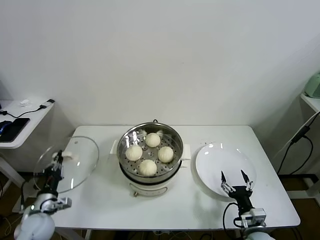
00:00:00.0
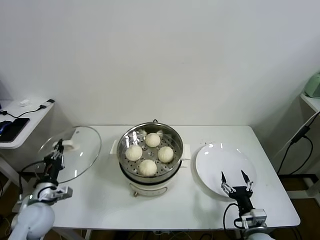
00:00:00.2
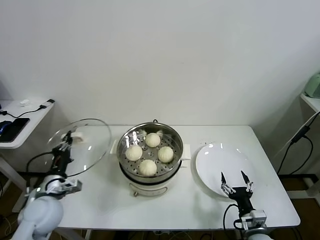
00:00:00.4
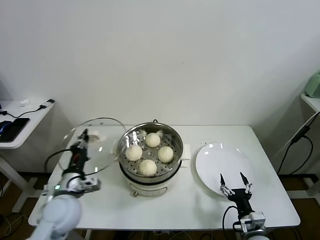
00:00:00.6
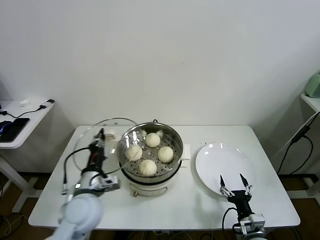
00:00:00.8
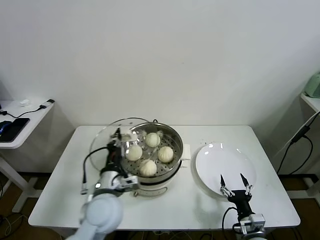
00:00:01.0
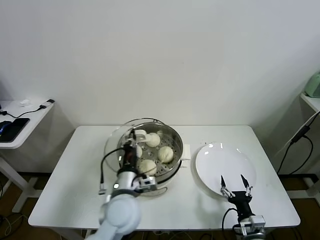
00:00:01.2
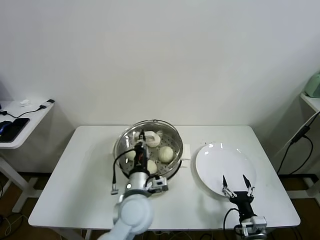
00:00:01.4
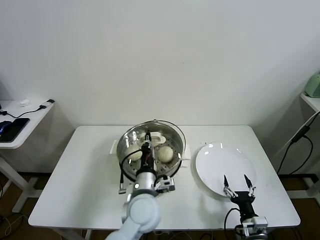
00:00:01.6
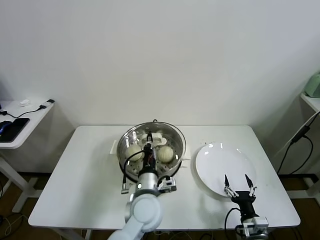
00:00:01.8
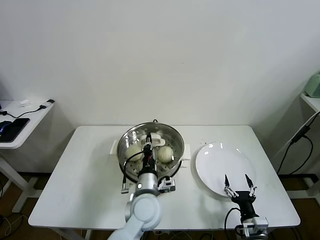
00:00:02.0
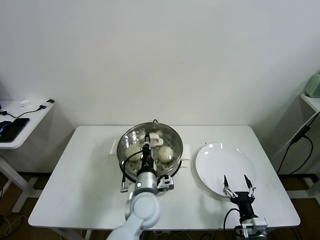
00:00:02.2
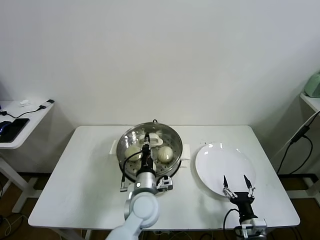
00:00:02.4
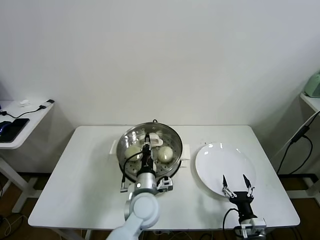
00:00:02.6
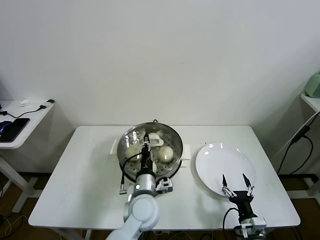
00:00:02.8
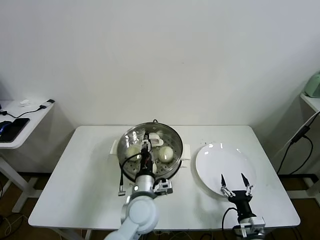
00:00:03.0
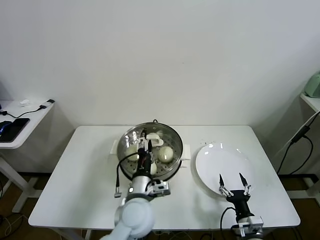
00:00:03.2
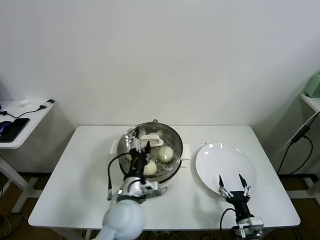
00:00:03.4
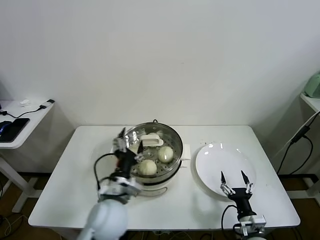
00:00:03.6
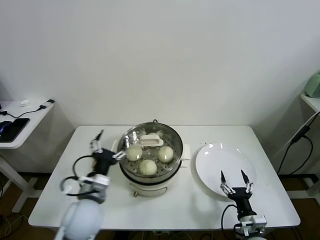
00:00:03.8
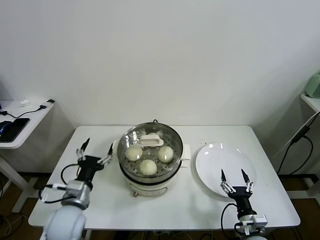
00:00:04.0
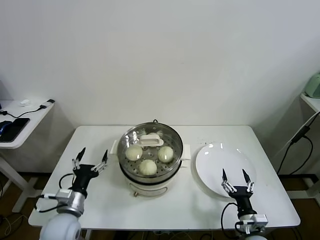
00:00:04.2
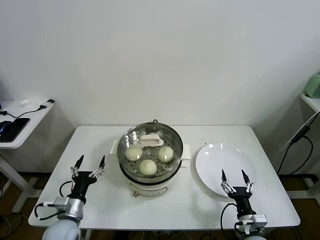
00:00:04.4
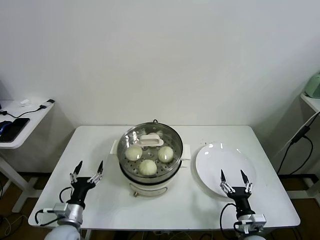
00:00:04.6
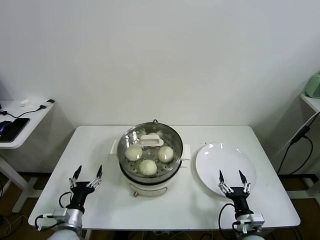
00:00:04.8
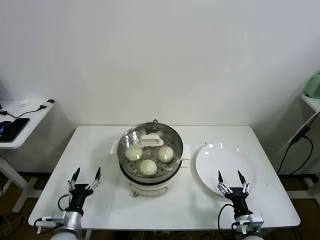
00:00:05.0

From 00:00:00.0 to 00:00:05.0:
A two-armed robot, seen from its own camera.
Task of the whole recording: take steamed baozi put them in steamer.
Step, from 00:00:00.0 to 00:00:03.2: Place the pot lid on the steamer with left gripper.
From 00:00:00.0 to 00:00:01.6: The left gripper moves to the right, some 35 cm.
From 00:00:01.6 to 00:00:03.4: The left gripper opens its fingers.
From 00:00:03.4 to 00:00:05.0: The left gripper goes about 30 cm to the left and downward.
